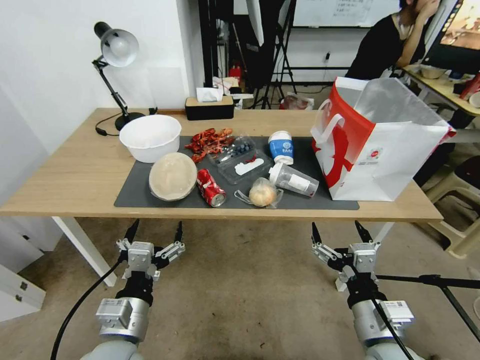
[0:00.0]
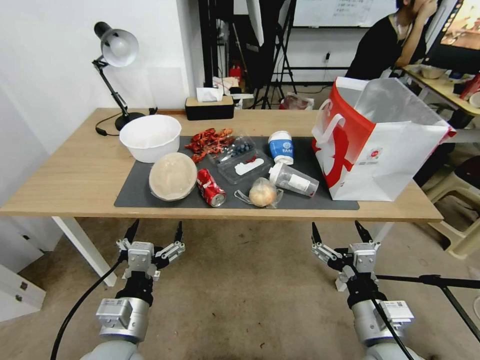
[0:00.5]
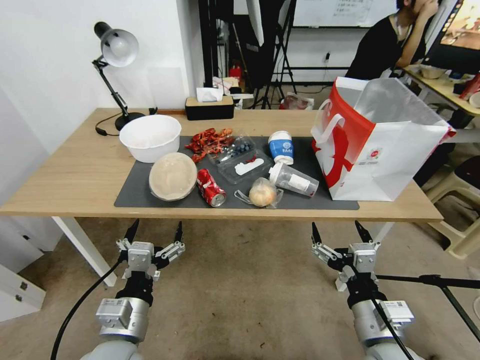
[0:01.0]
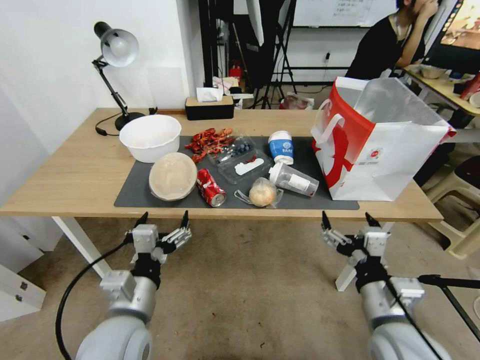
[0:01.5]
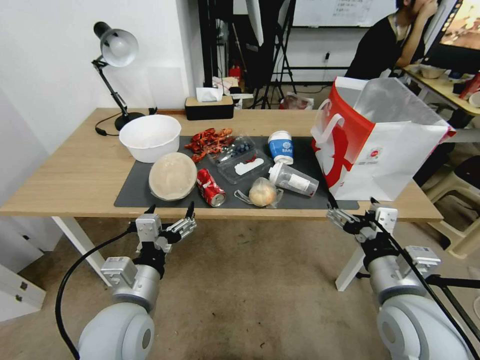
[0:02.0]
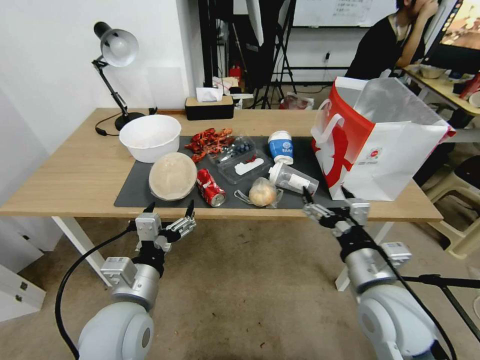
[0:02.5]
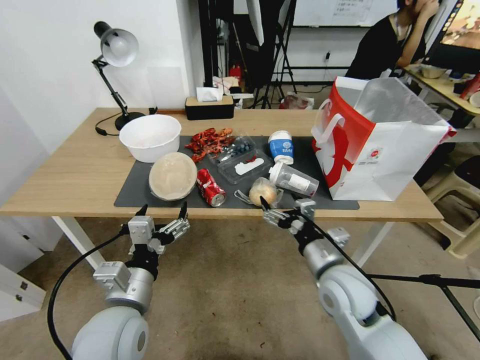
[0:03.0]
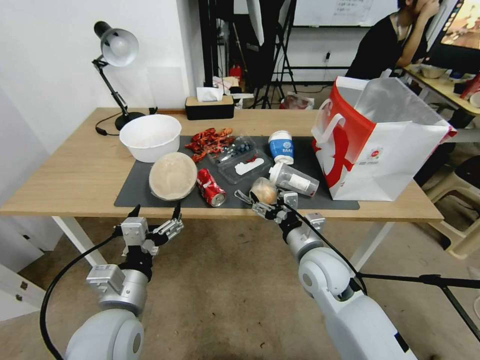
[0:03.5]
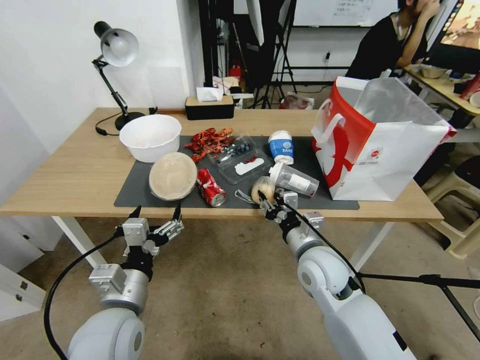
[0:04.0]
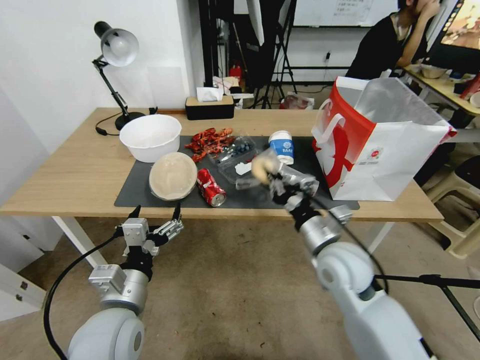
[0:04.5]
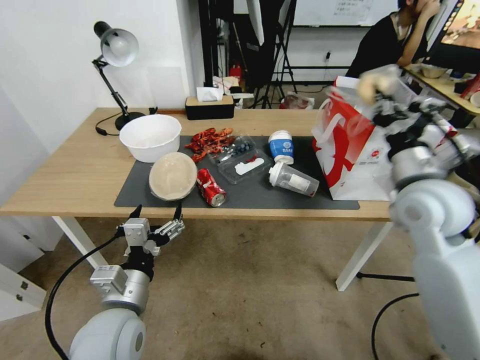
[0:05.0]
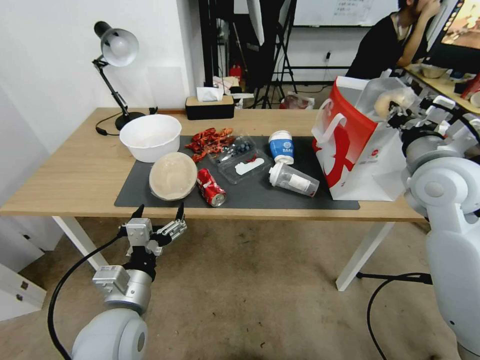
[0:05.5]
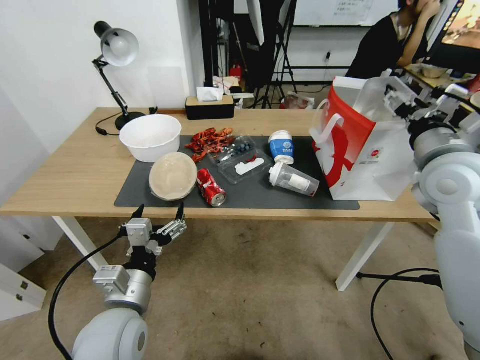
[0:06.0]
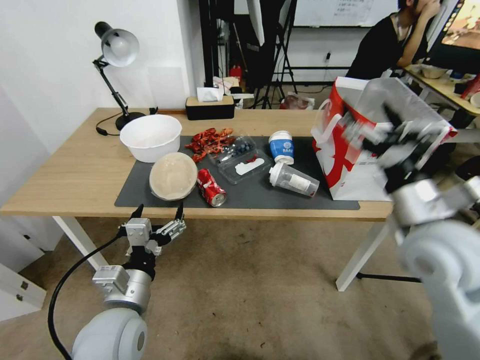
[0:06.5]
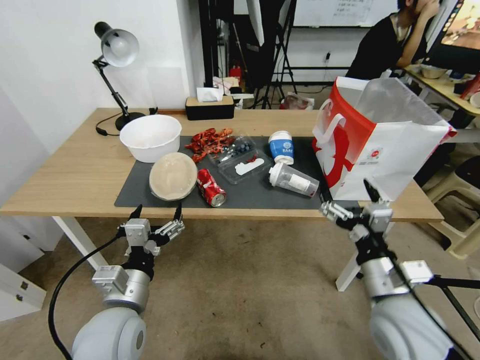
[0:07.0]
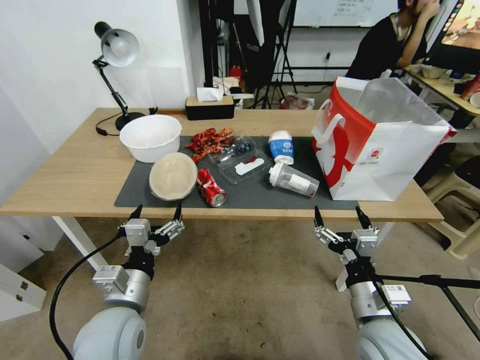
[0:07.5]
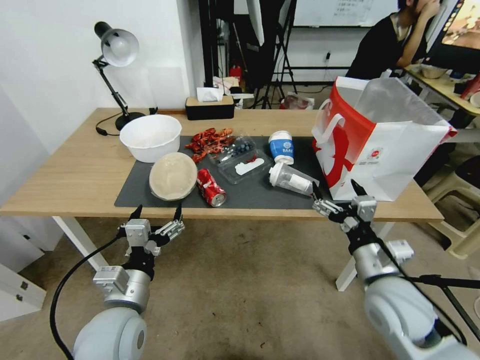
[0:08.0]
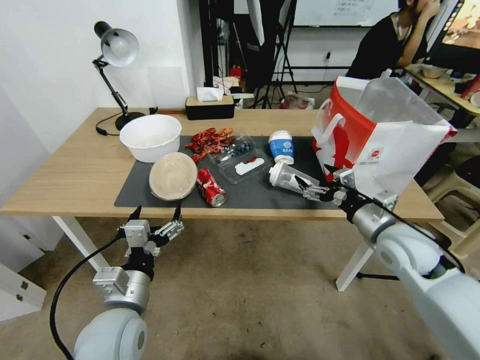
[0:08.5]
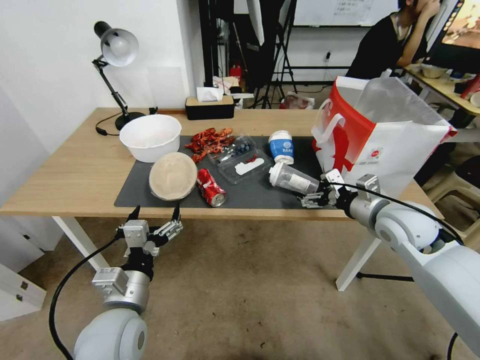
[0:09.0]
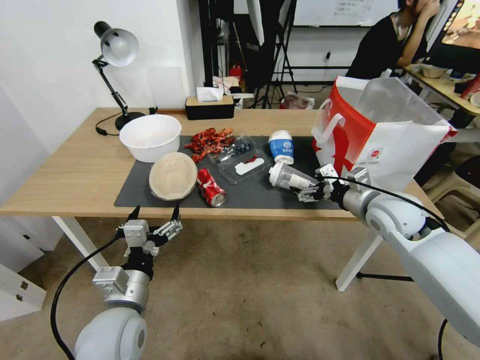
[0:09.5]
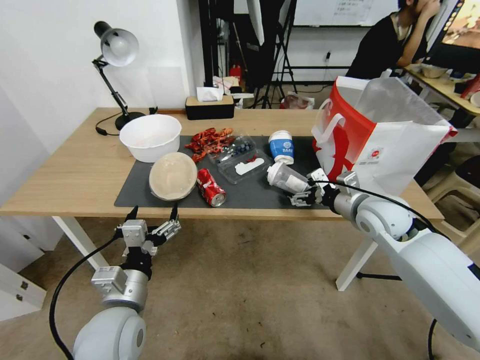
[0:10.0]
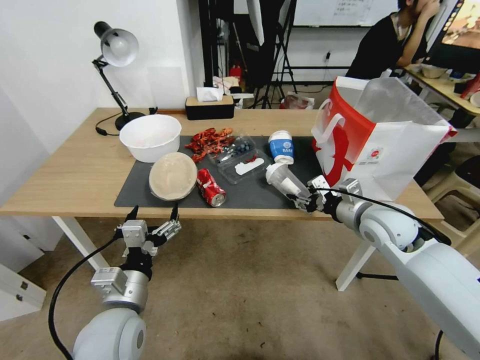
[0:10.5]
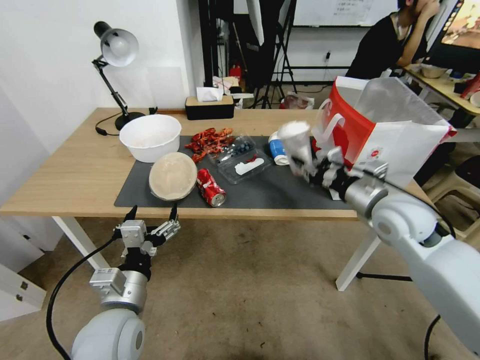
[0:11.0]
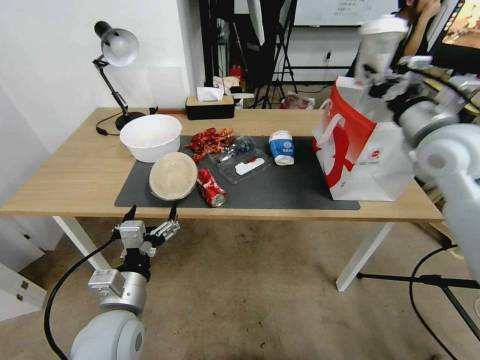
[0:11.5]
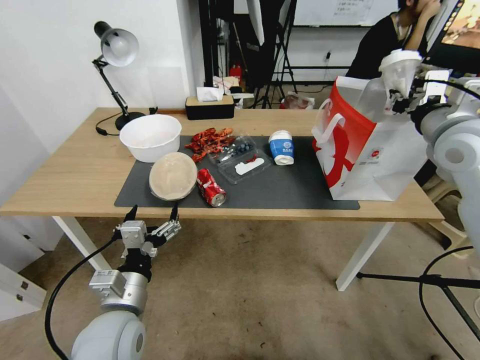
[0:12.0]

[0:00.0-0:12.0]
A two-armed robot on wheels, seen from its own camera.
0:02.0 to 0:04.0: The right gripper heads forward, to the left and downward, covering some 15 cm, and closes its fingers.
0:04.0 to 0:06.0: The right gripper is displaced upward and to the right by some 30 cm, and opens.
0:06.0 to 0:08.0: The right gripper moves downward and backward, approximately 25 cm.
0:08.0 to 0:10.0: The right gripper is displaced forward by approximately 15 cm.
0:10.0 to 0:12.0: The right gripper goes some 20 cm upward, and closes.

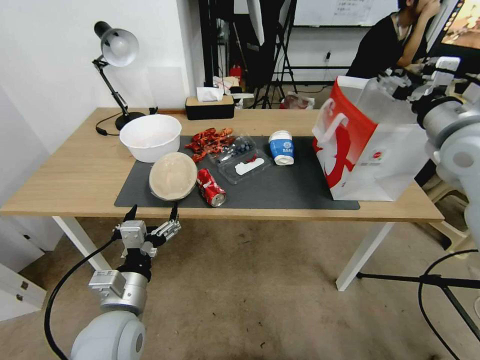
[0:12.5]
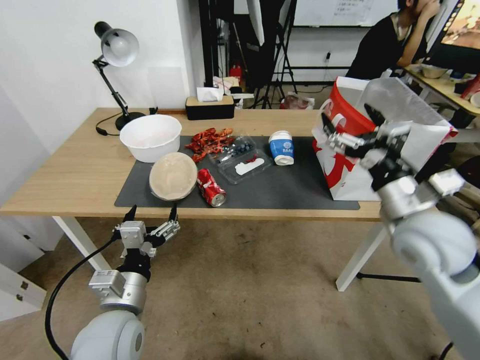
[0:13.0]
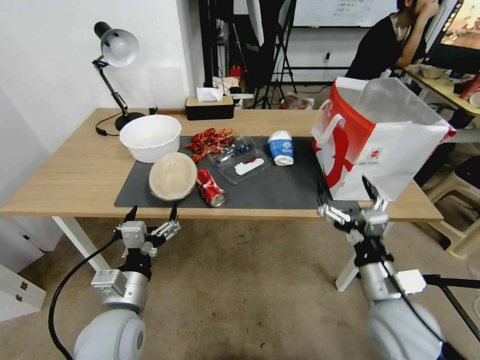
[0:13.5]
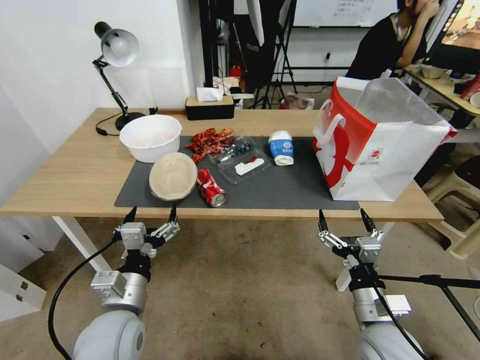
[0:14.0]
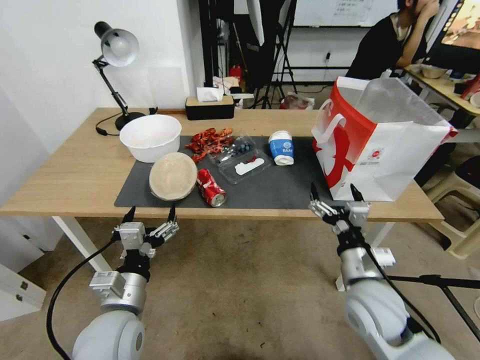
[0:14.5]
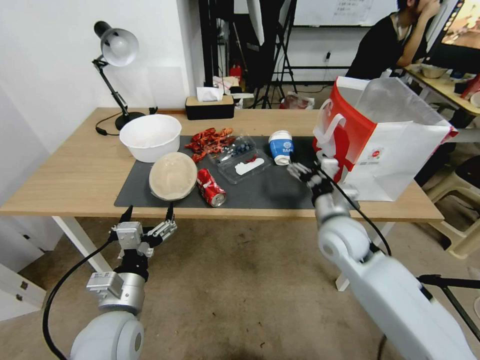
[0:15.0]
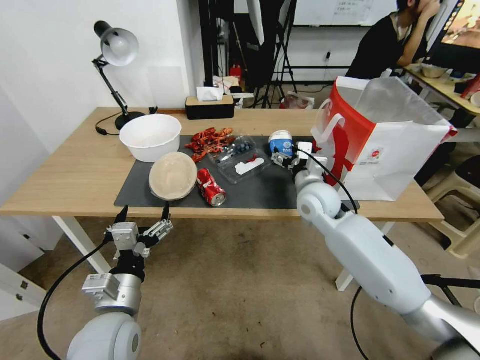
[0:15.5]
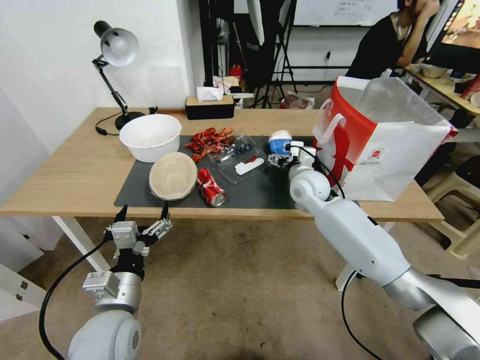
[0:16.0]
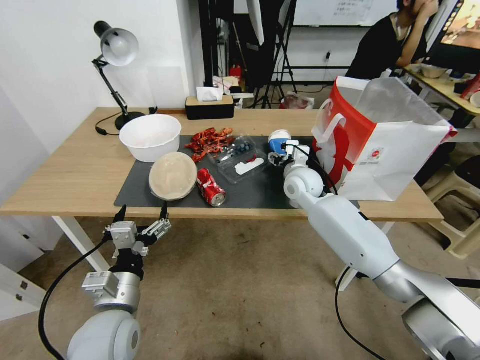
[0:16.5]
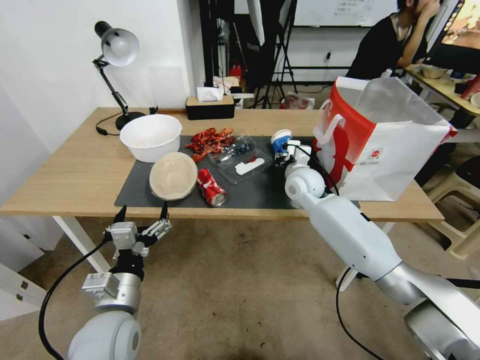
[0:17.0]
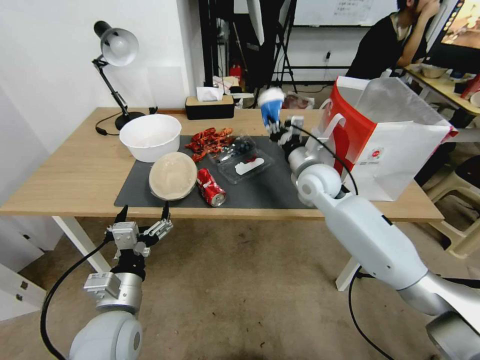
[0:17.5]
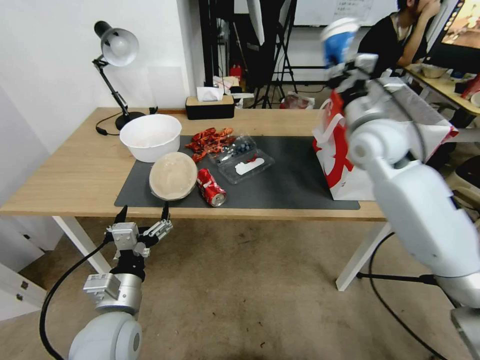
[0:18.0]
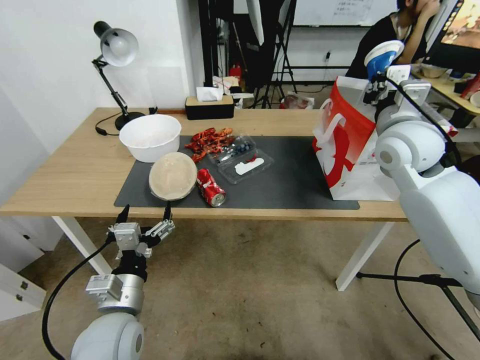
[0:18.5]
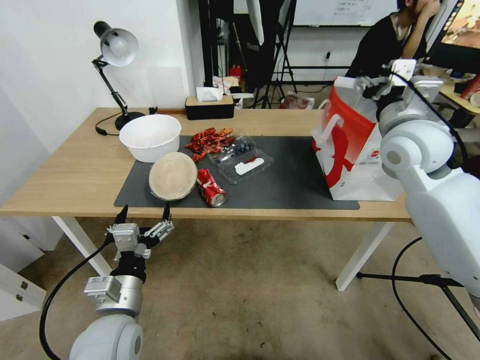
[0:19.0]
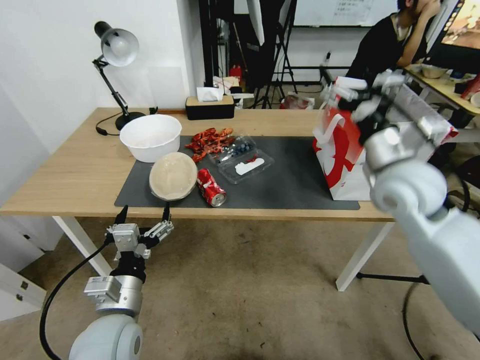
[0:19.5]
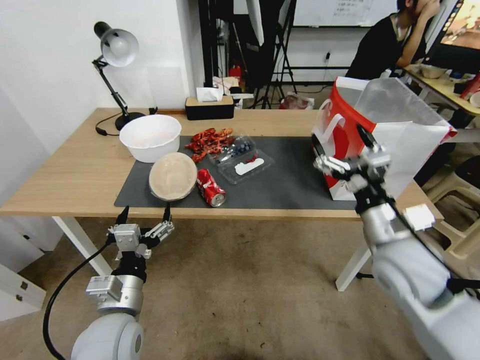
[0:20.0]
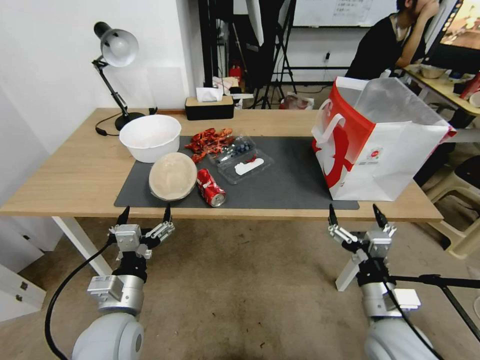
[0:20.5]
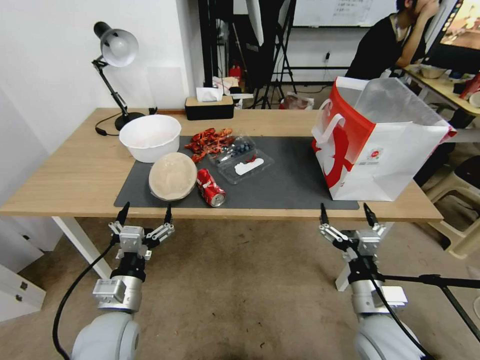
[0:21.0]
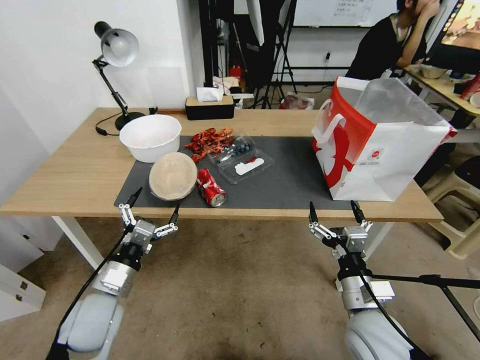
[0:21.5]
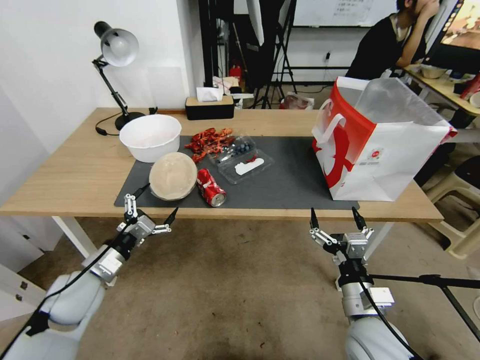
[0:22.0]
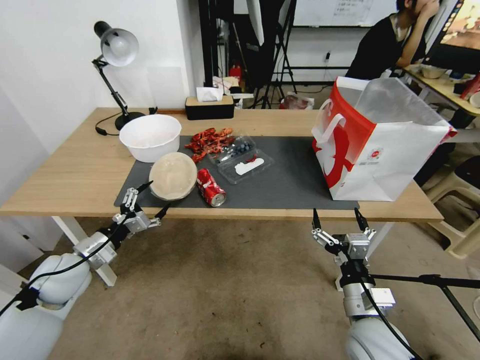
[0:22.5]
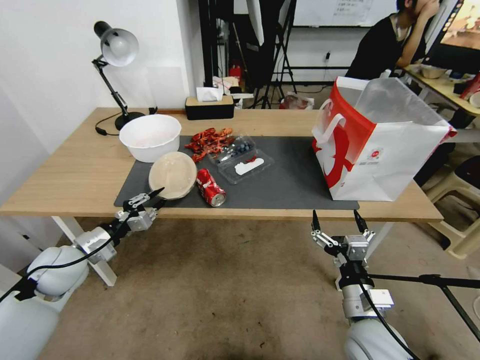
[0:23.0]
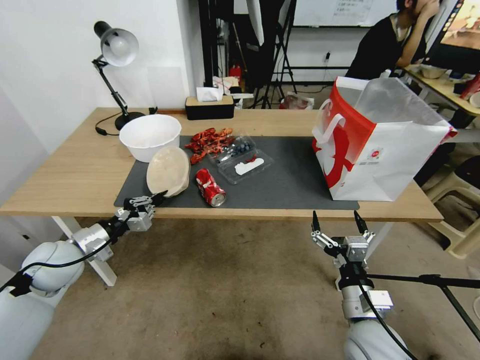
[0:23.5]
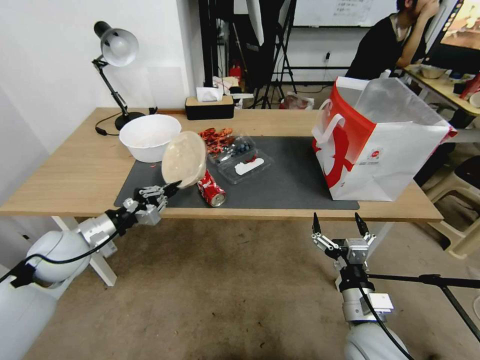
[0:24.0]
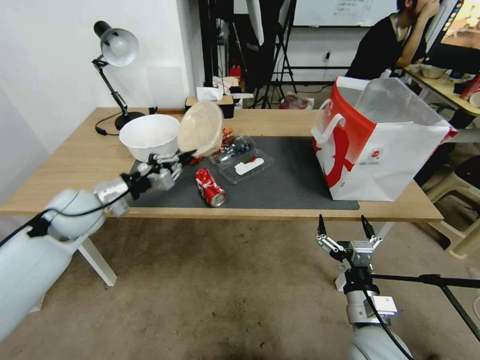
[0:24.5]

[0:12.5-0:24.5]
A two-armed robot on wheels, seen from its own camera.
0:12.5 to 0:14.5: The right gripper shifts about 35 cm downward, backward and to the left.
0:14.5 to 0:16.5: The right gripper moves forward, about 30 cm.
0:16.5 to 0:18.5: The right gripper is displaced upward, to the right and backward by some 25 cm, and closes up.
0:18.5 to 0:20.5: The right gripper is displaced backward and downward by some 35 cm, and opens up.
0:20.5 to 0:22.5: The left gripper moves to the left and forward, approximately 20 cm.
0:22.5 to 0:24.5: The left gripper goes roughly 15 cm upward and forward, and closes its fingers.

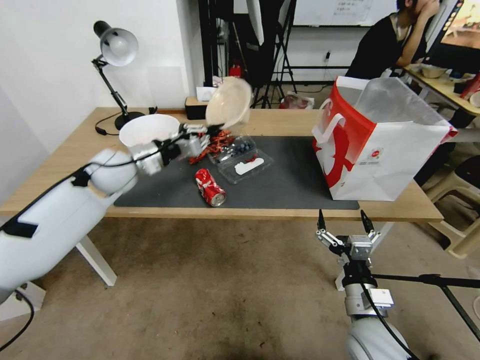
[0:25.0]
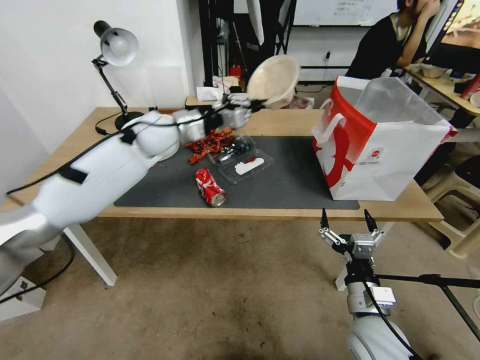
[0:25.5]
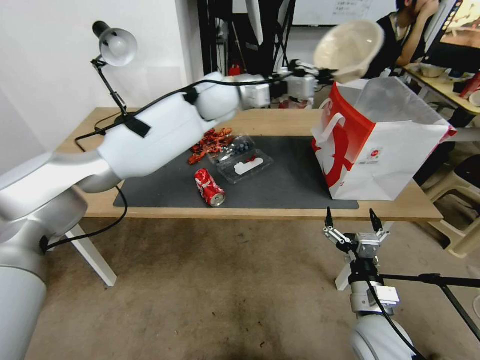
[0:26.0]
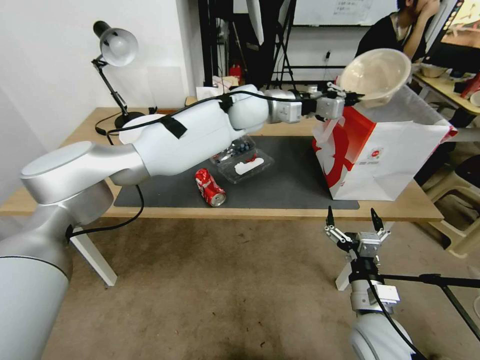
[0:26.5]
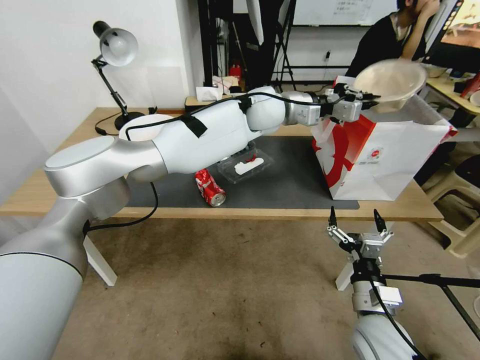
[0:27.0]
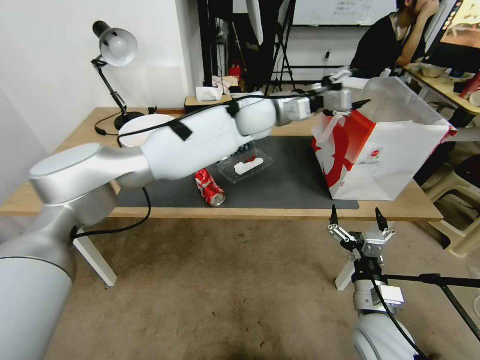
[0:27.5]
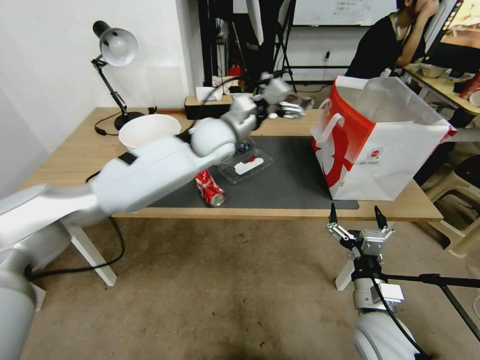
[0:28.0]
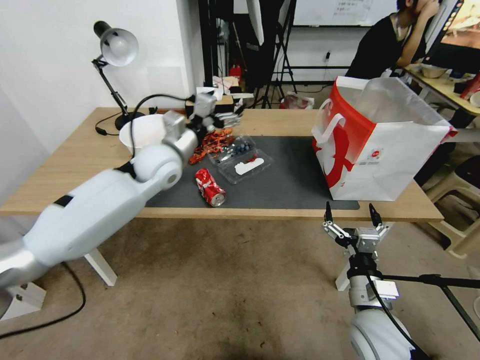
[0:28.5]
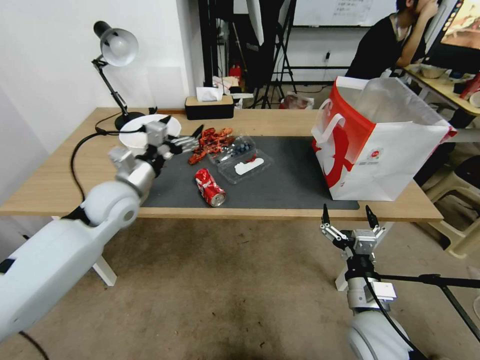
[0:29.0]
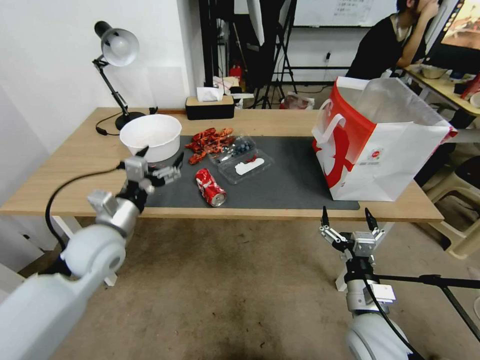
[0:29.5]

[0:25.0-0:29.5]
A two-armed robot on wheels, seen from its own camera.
0:25.0 to 0:27.0: The left gripper is displaced to the right by some 30 cm.
0:27.0 to 0:29.5: The left gripper goes roughly 40 cm to the left, backward and downward, and opens its fingers.
